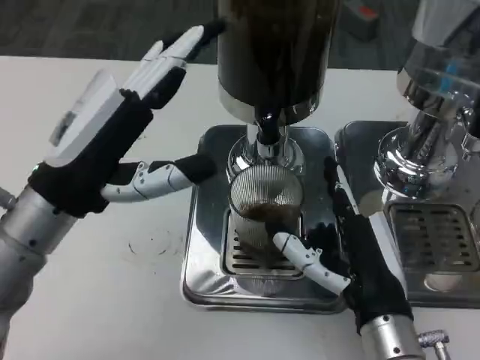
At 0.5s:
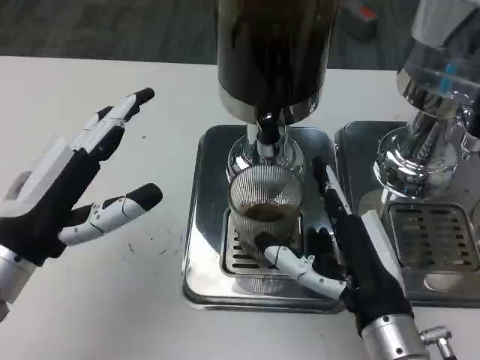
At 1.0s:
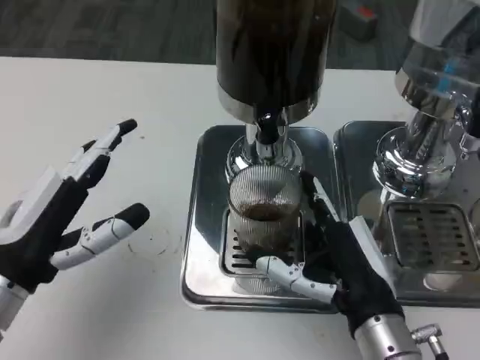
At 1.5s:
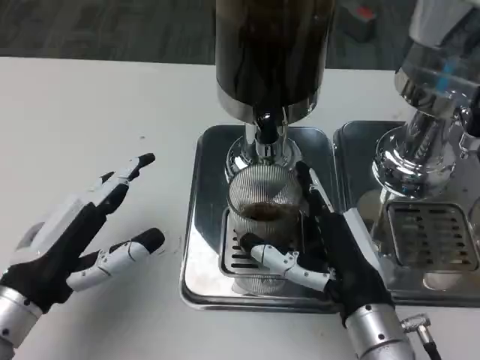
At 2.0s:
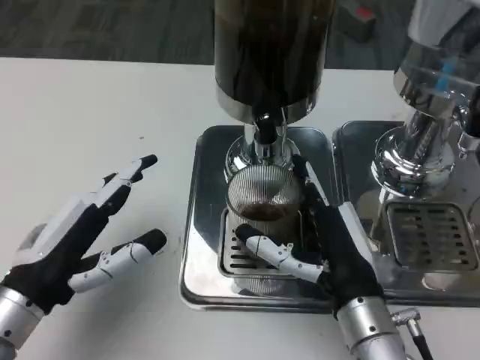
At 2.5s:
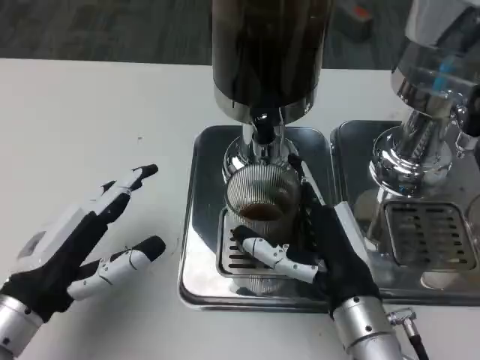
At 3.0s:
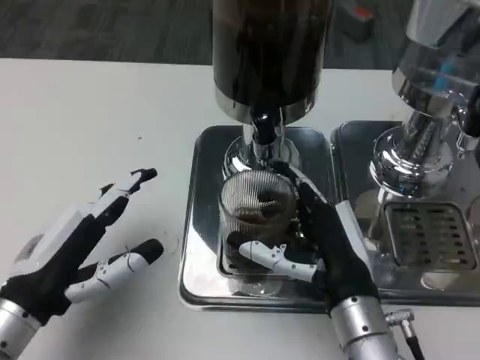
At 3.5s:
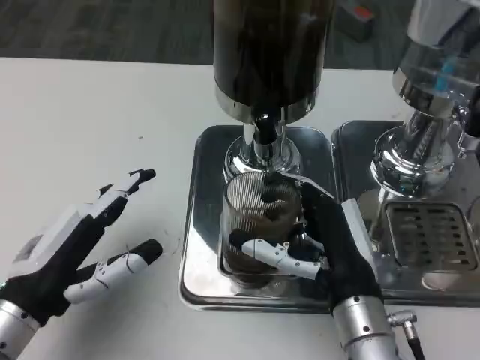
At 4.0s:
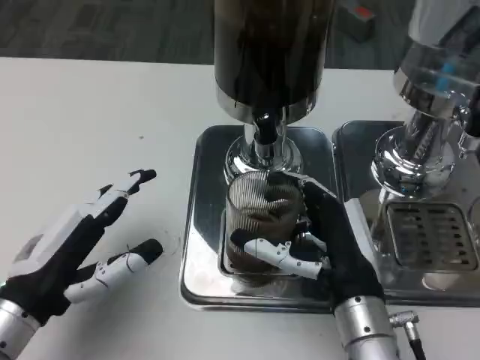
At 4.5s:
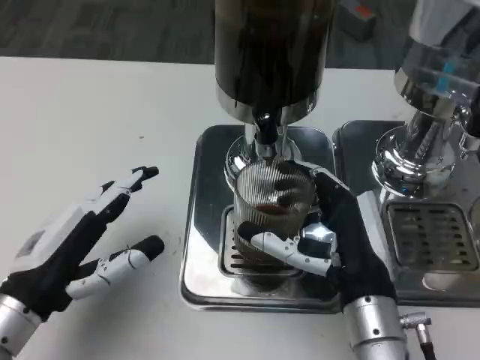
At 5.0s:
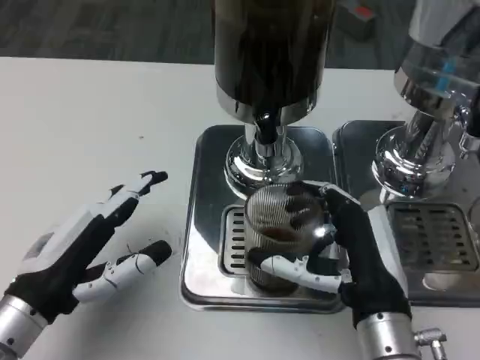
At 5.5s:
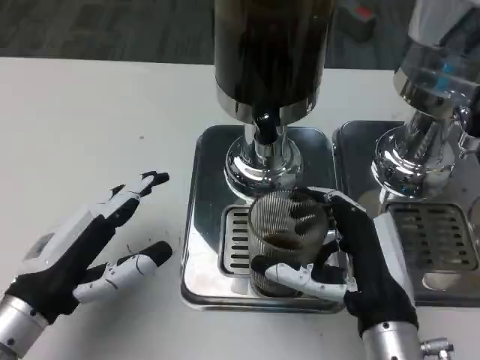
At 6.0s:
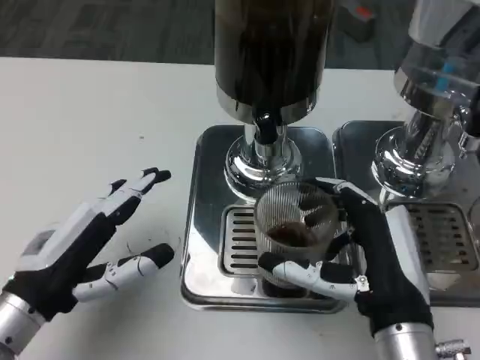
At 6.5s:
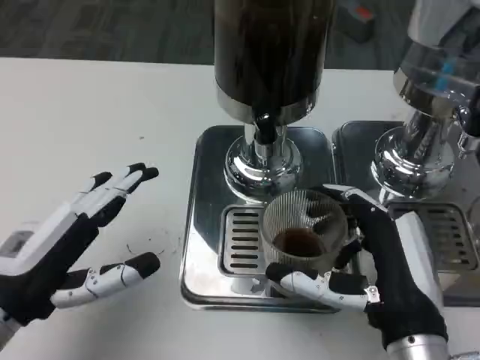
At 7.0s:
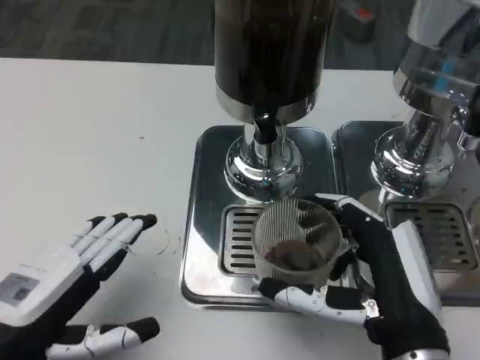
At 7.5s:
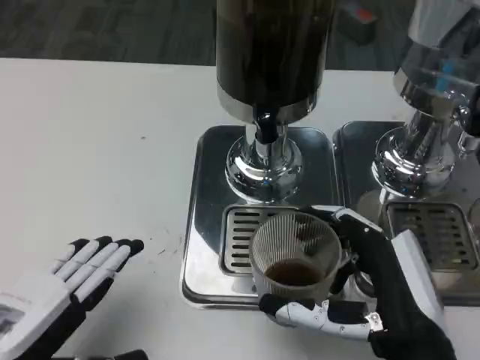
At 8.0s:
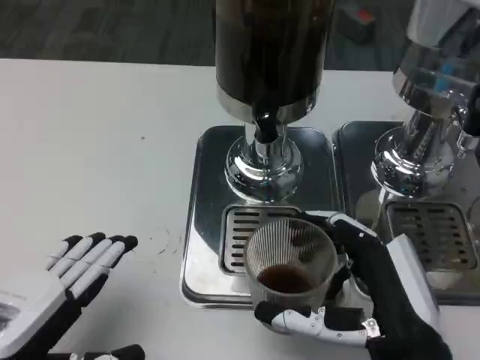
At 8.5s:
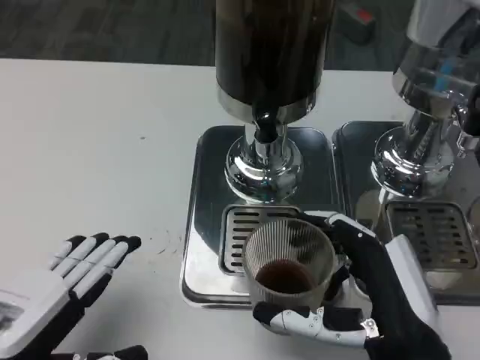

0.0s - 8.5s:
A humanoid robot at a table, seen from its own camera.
Task of the whole recording: Grasp the cup under the faucet to collect the drink, then remove the cup.
0.0s - 2.0s: The left hand moves downward and backward, approximately 10 cm.
2.0s - 4.0s: The hands stay close to where they were, moving slightly.
4.0s - 6.5s: The right hand goes about 5 cm backward.
6.5s - 8.5s: The left hand is displaced backward by approximately 5 cm.

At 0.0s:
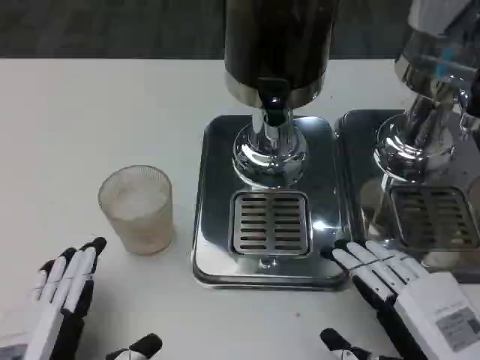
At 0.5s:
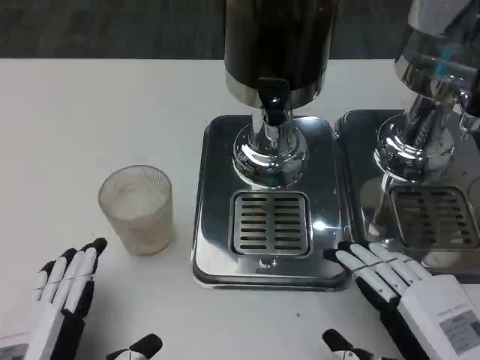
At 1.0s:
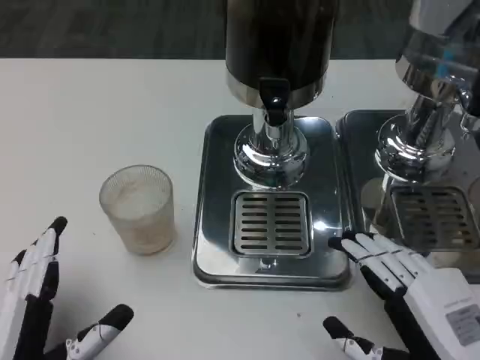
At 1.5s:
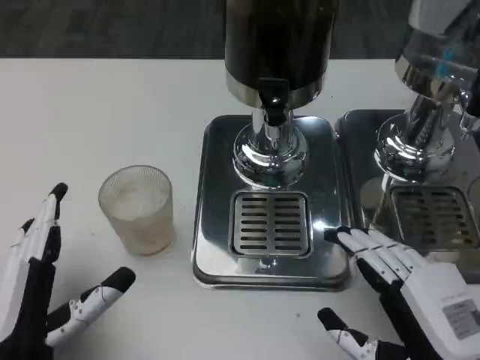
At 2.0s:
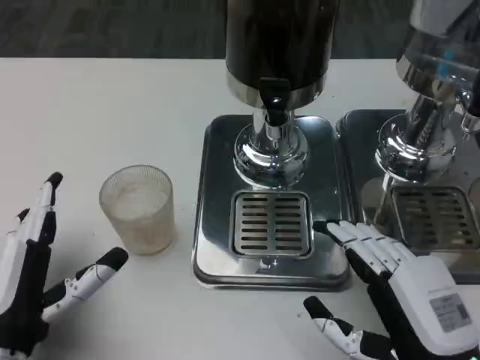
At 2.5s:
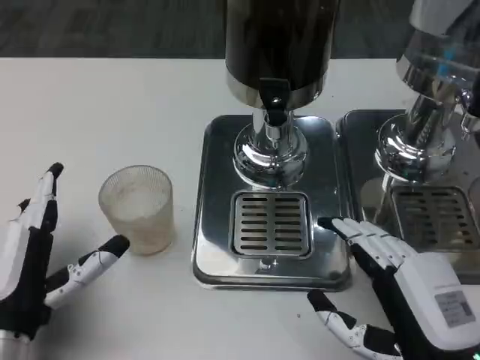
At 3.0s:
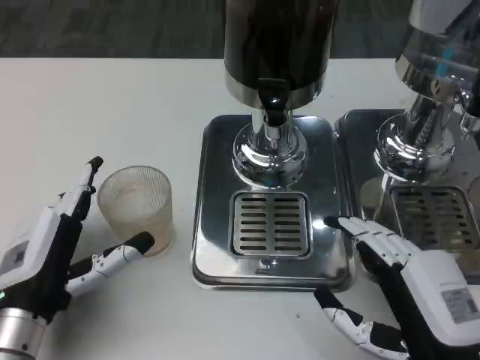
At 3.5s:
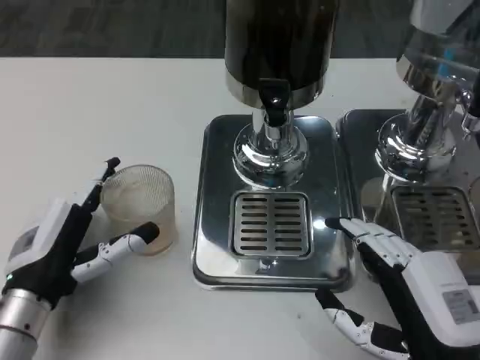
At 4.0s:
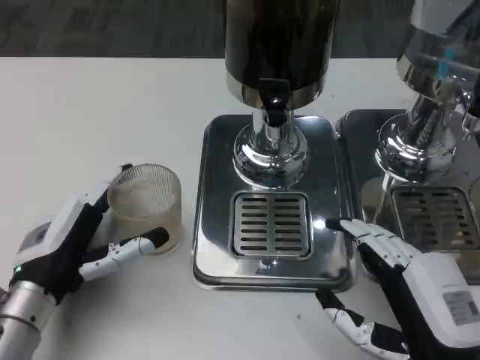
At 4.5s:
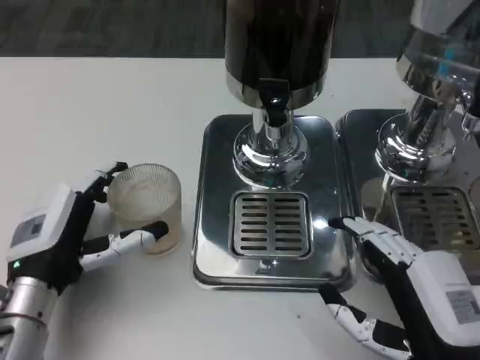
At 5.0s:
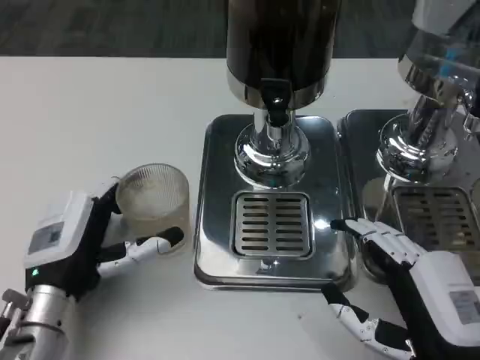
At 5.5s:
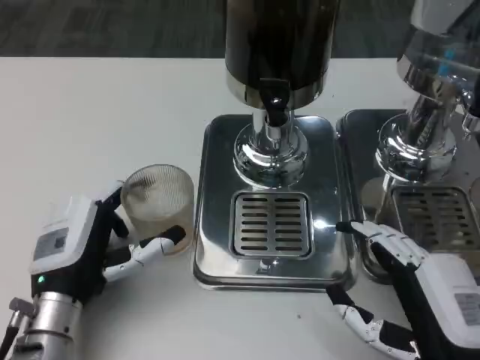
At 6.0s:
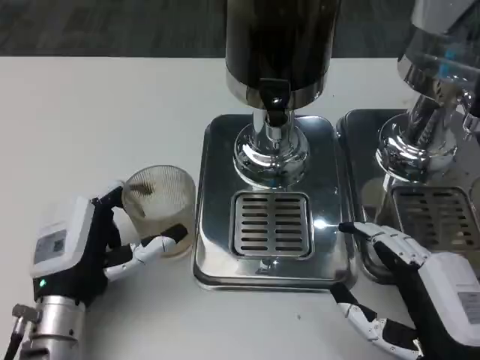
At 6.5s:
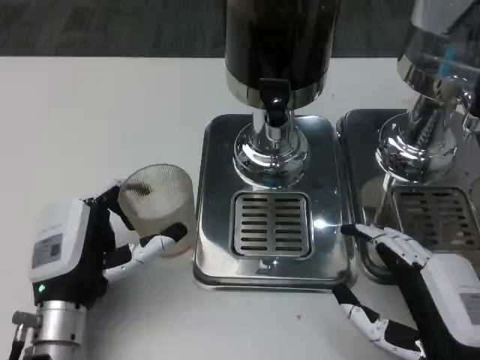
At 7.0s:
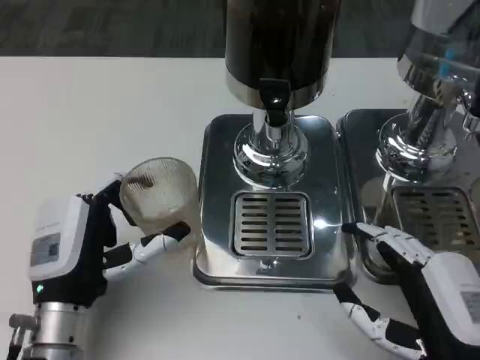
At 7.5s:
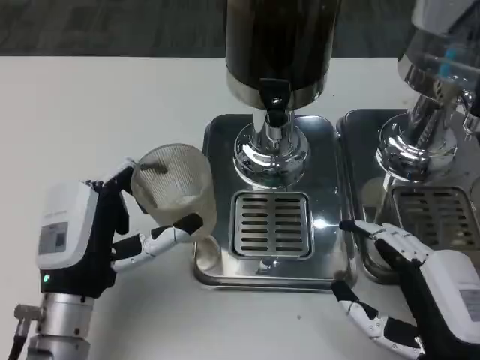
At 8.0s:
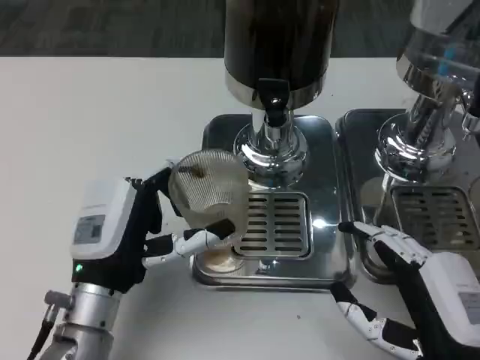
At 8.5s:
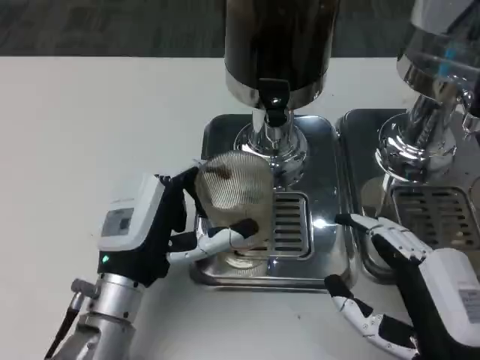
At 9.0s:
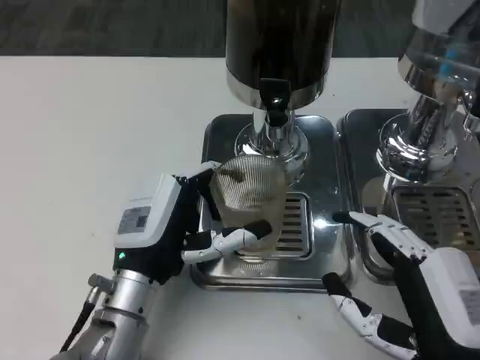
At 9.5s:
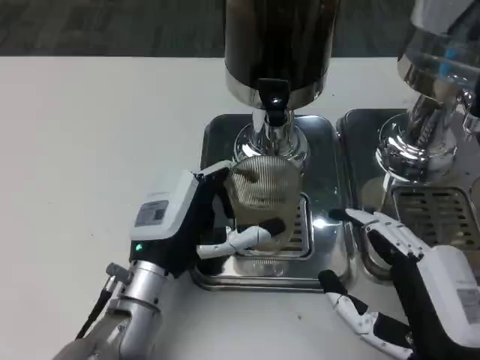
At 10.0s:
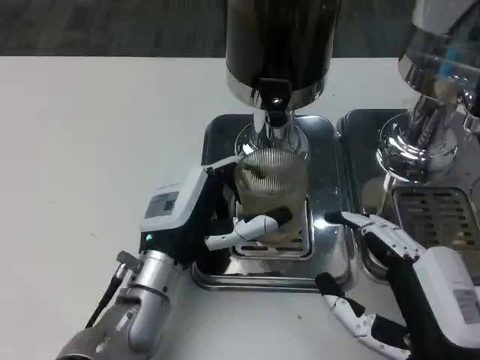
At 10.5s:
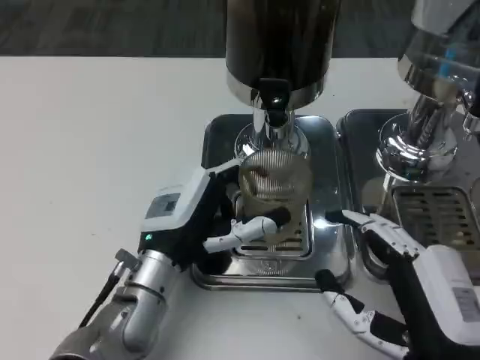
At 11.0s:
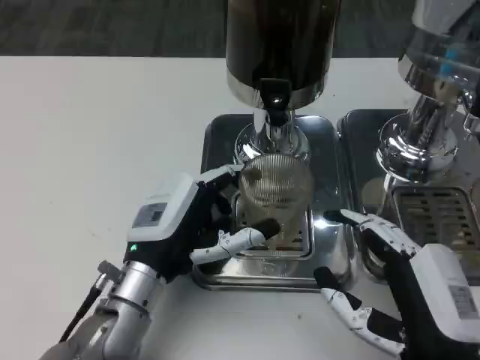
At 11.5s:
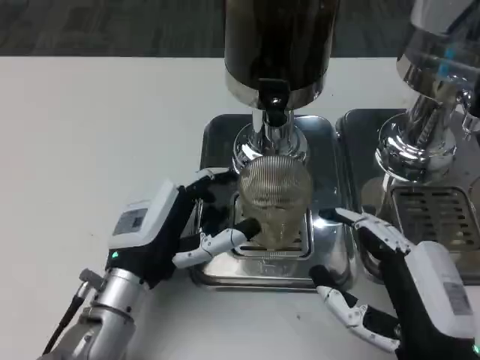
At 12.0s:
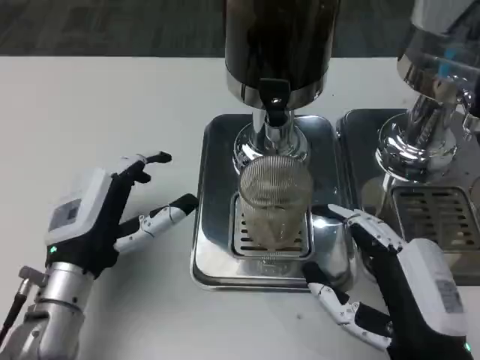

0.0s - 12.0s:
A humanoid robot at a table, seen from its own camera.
Task of the whole recording: Grasp the cup under the faucet to collect the drink, then remove the cup.
0.0s - 2.0s: The left hand shifts roughly 5 cm forward.
2.0s - 4.0s: The left hand shifts about 5 cm forward.
4.0s - 6.0s: There are only small adjustments of the hands.
6.0s - 8.0s: The hands stay close to where they were, moving slightly.
8.0s - 10.0s: The left hand travels to the right by some 5 cm.
10.0s - 12.0s: The left hand goes some 10 cm to the left.

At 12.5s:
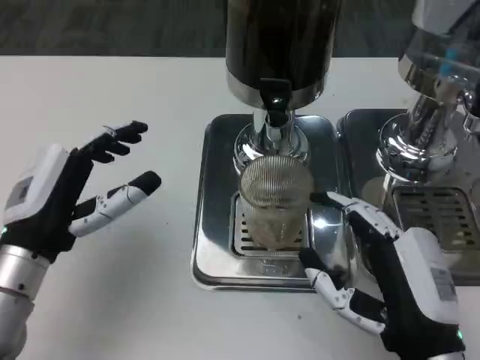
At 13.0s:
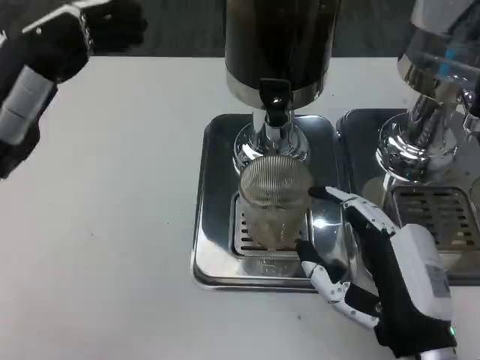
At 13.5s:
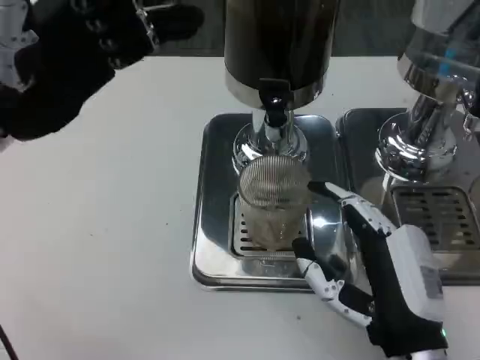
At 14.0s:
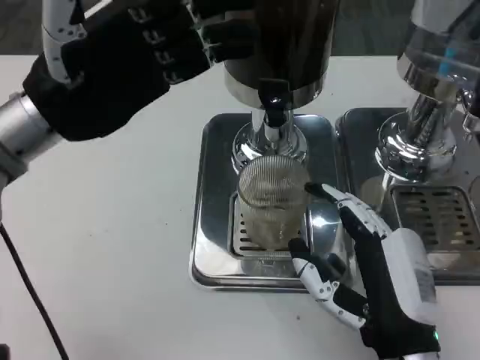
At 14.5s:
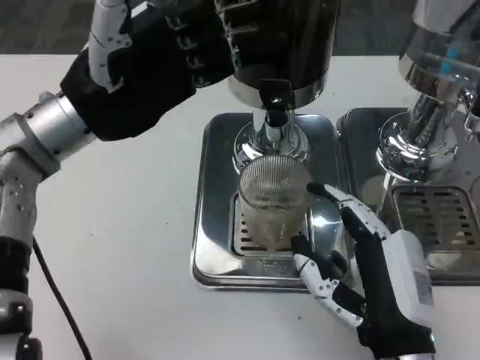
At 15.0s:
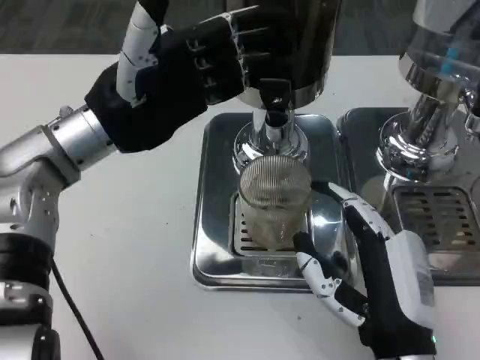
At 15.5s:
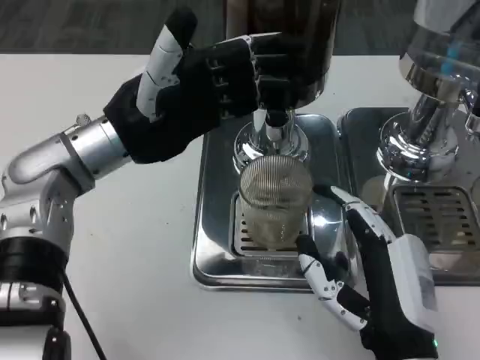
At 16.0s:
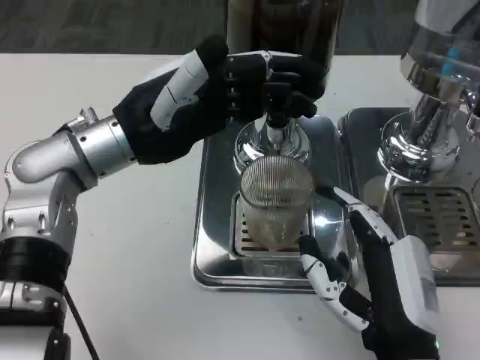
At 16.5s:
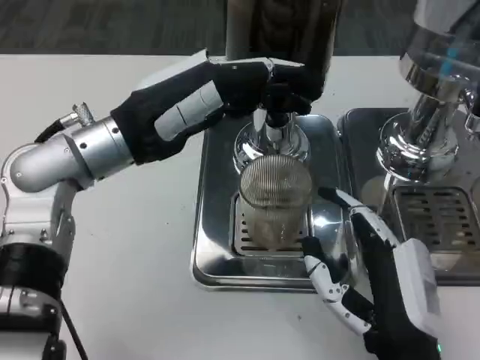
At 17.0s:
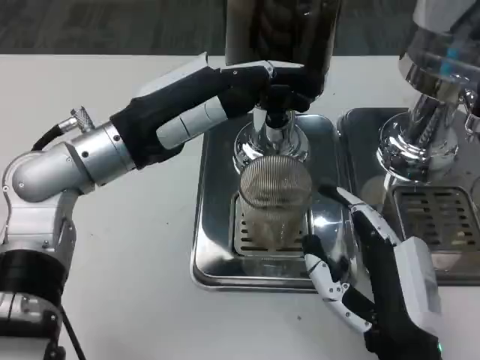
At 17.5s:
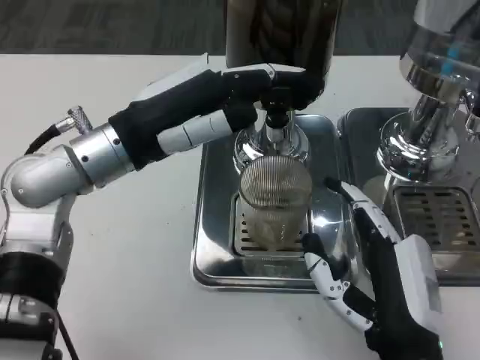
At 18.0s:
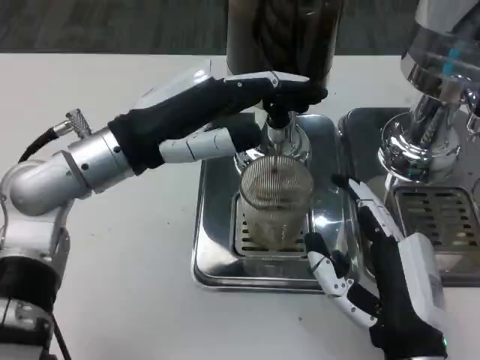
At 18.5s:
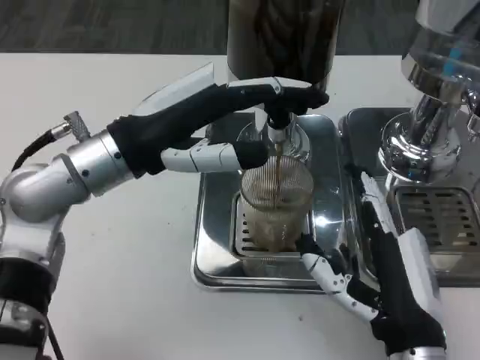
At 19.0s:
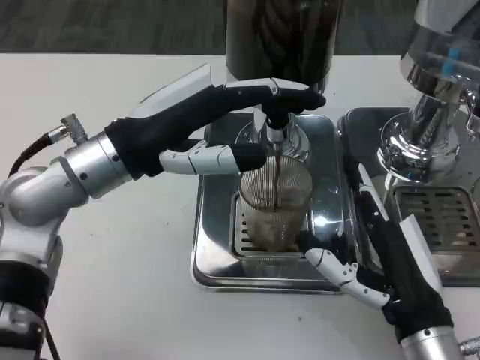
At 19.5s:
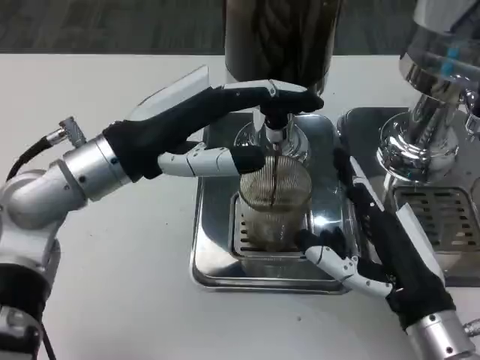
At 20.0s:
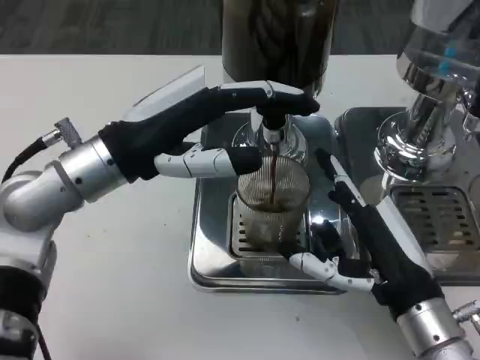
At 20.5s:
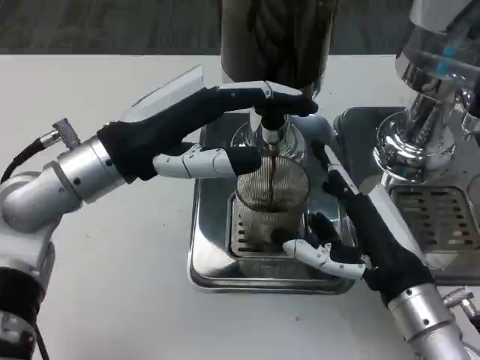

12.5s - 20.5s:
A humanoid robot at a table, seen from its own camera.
Task of the whole recording: Grasp the cup under the faucet to collect the drink, then remove the cup.
12.5s - 14.5s: The left hand travels upward and forward by about 15 cm.
18.5s - 20.5s: The right hand shifts approximately 5 cm forward.
